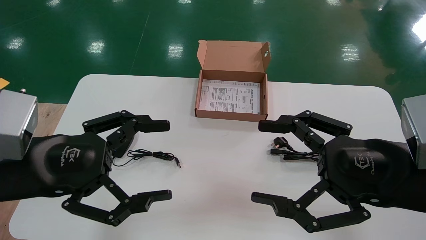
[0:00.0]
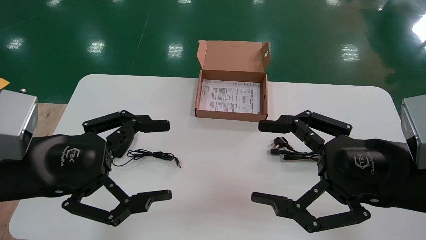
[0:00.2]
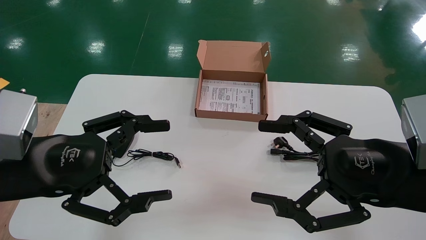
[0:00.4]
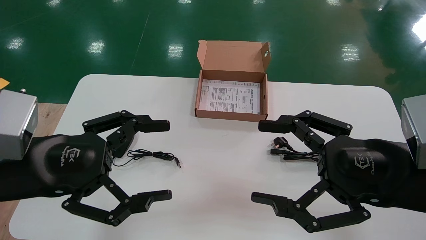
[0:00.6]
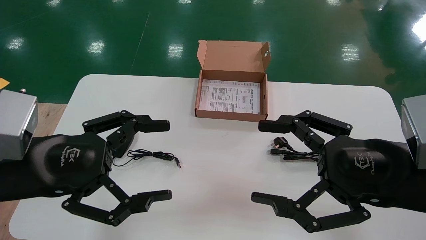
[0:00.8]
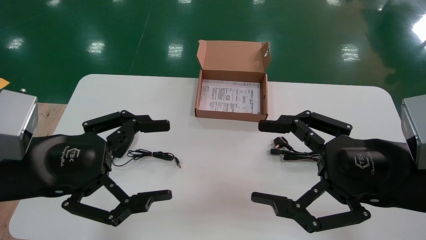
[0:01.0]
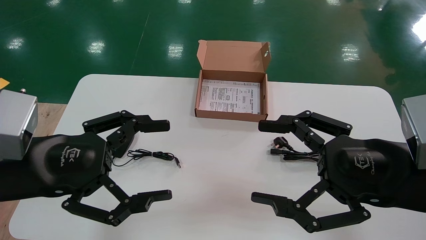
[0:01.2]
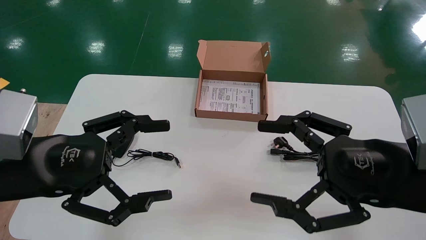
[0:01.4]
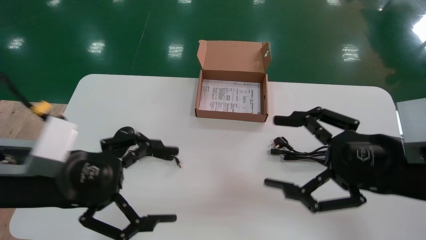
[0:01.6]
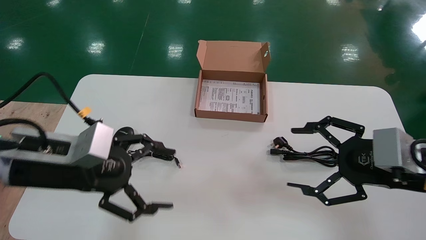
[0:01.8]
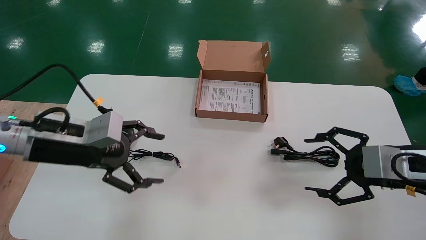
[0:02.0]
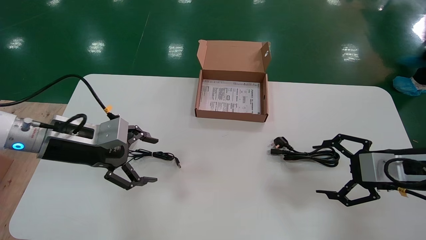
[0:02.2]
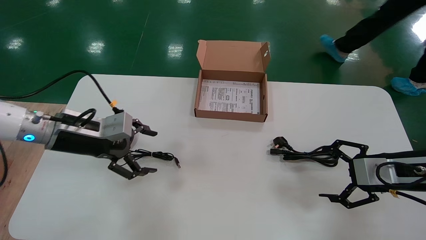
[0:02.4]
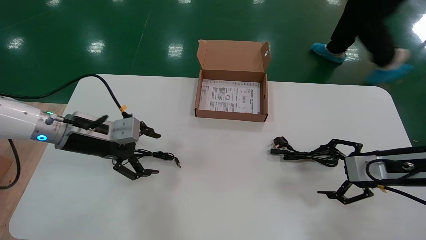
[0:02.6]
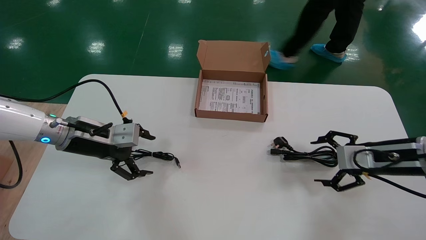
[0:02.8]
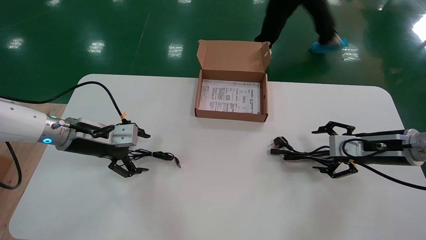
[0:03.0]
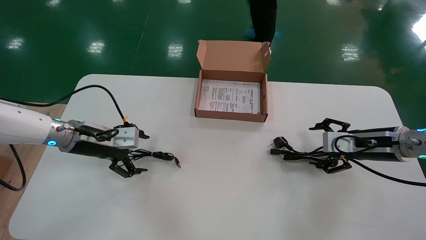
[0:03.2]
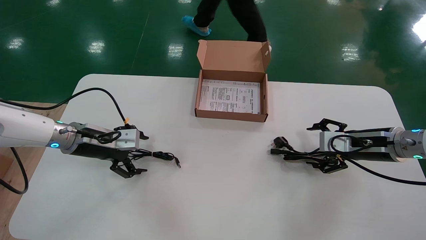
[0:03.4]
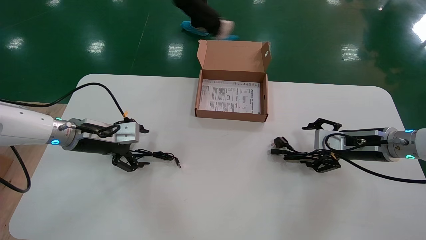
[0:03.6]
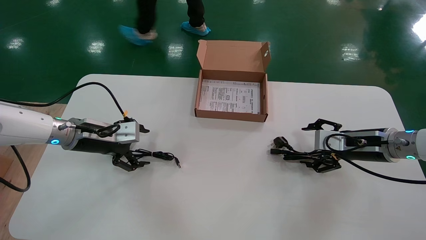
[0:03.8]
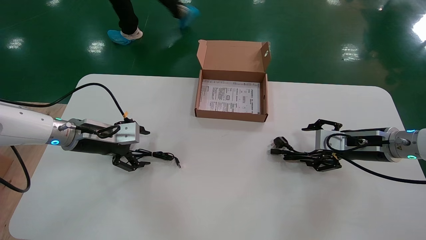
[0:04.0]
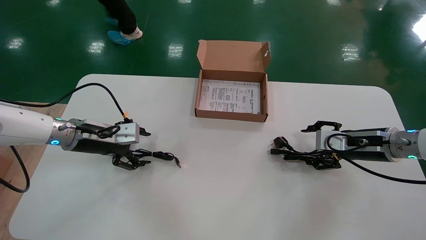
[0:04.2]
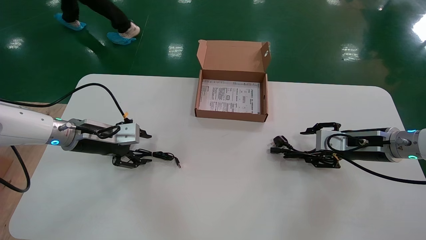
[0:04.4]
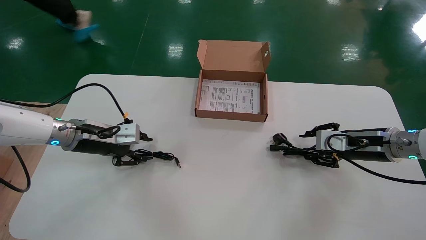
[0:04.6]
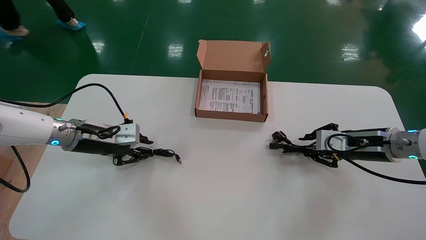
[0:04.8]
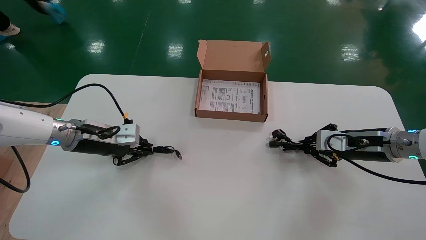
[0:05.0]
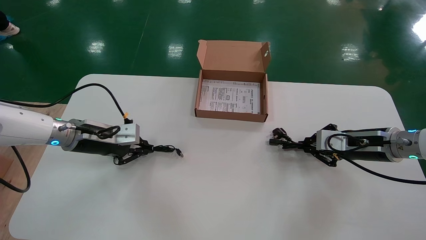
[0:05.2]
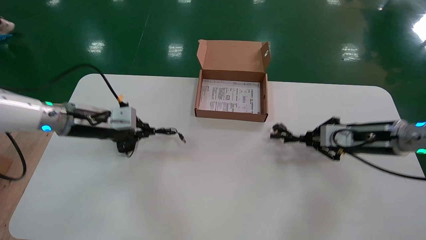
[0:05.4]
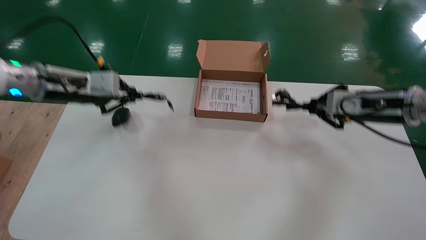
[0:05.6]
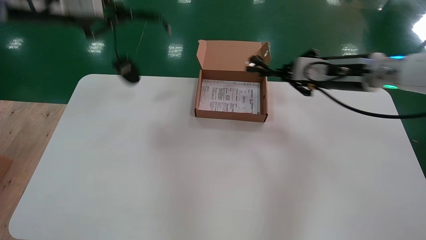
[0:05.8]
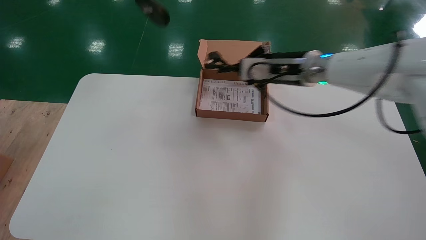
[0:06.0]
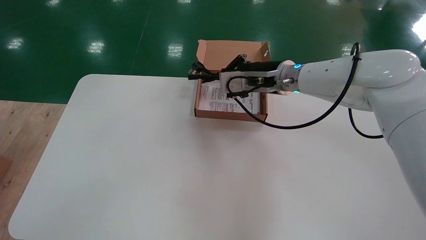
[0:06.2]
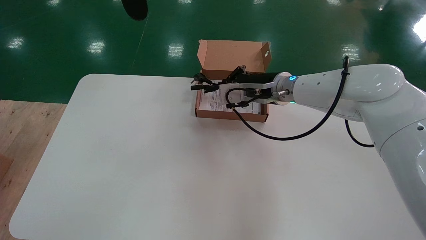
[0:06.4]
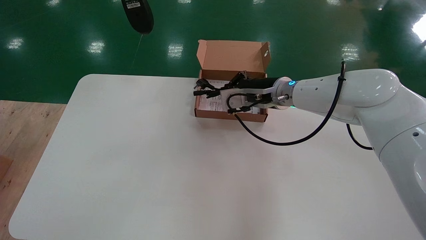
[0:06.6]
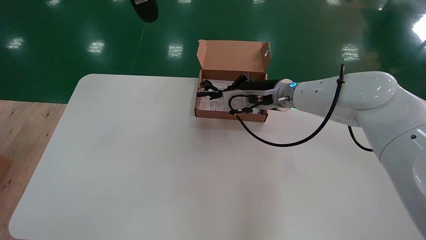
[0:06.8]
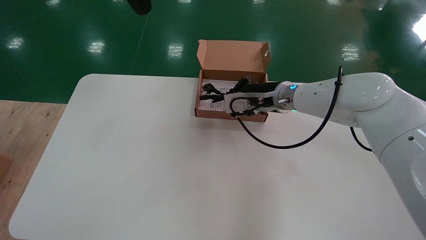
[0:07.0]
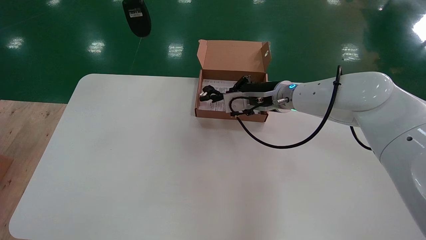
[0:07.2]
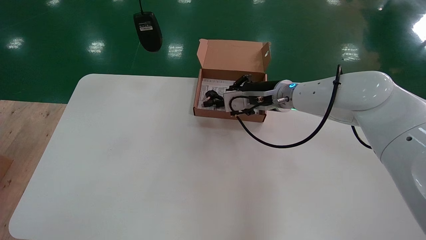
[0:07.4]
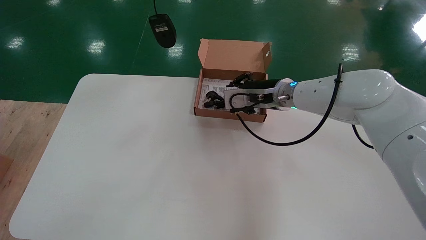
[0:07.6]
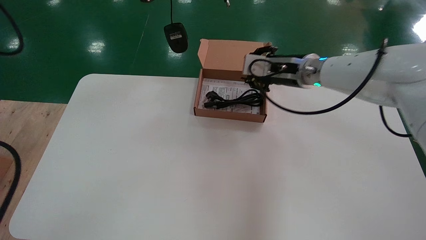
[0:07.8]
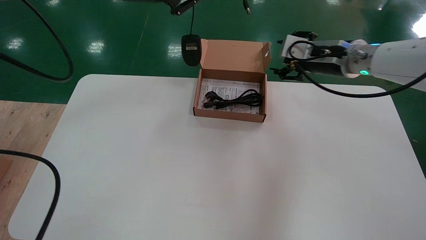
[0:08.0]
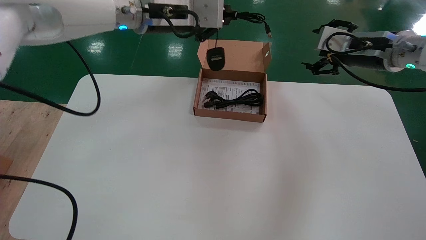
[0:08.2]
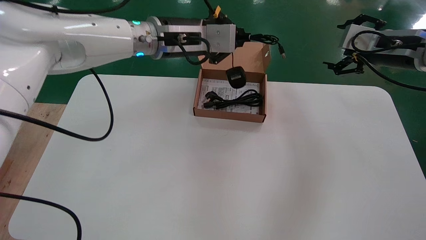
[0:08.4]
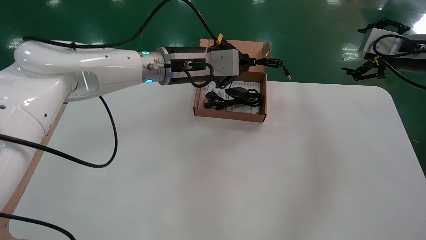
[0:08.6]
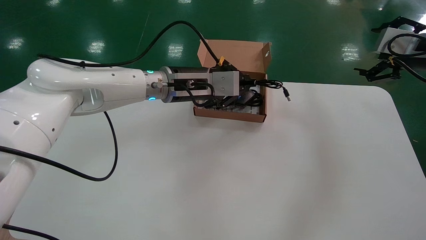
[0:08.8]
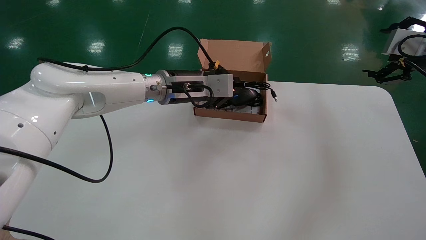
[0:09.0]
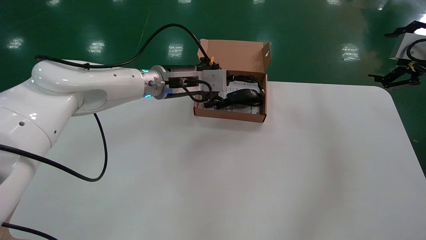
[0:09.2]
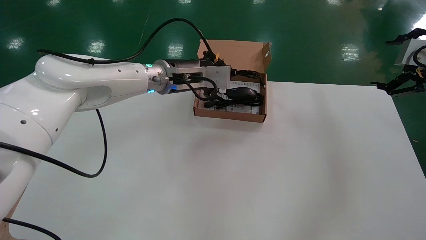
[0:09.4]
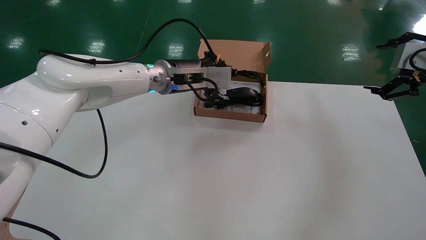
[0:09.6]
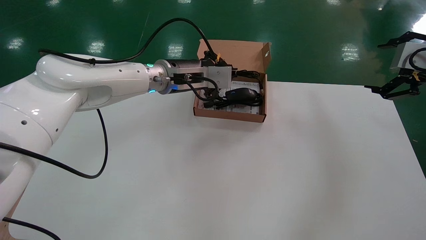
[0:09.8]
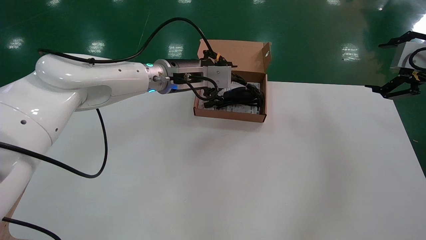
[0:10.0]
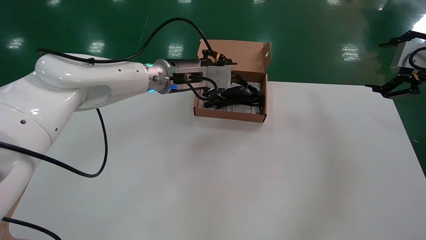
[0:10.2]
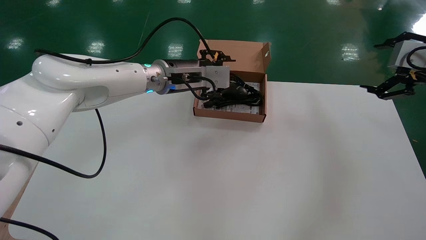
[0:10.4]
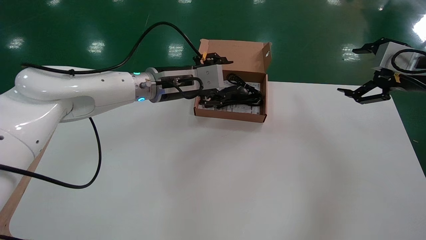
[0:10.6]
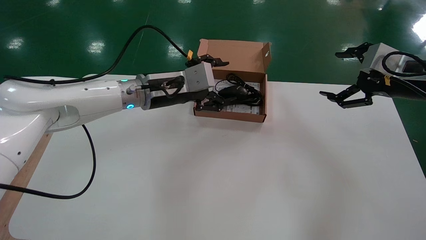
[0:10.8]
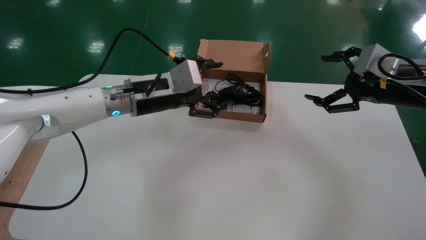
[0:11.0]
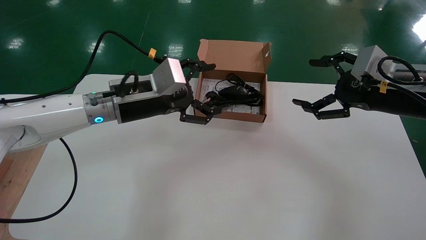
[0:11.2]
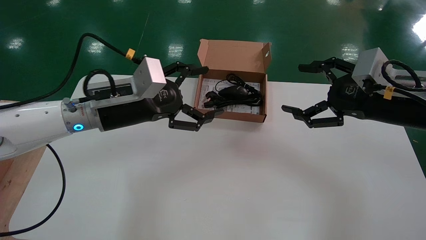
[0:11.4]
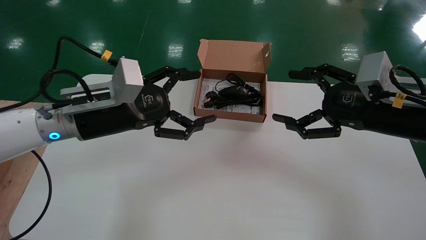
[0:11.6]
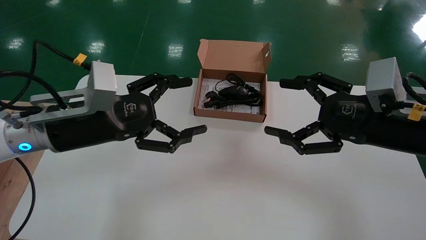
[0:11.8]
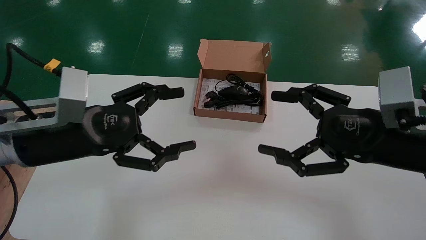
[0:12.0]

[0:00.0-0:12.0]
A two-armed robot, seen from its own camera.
Step, 0:02.0 to 0:05.2: Simultaneously pick up the mouse and power cord from the accessory packaging area.
Step, 0:05.4 to 0:10.2: Place the mouse and power cord into the box.
0:01.6 to 0:03.0: The right gripper heads forward and to the right, covering approximately 20 cm. Meanwhile the left gripper travels forward by roughly 20 cm.
0:03.0 to 0:04.4: The grippers make only small movements.
0:04.4 to 0:06.0: The right gripper moves to the left and upward, about 20 cm, and closes its fingers. Meanwhile the left gripper is displaced upward by approximately 35 cm, and closes its fingers.
0:06.0 to 0:07.6: The left gripper goes approximately 5 cm to the right.
0:07.6 to 0:09.0: The left gripper is displaced downward, to the right and forward by about 30 cm. Meanwhile the right gripper shifts approximately 30 cm to the right, and opens its fingers.
0:09.0 to 0:10.4: The left gripper opens up.
0:10.4 to 0:12.0: The left gripper moves backward and to the left, approximately 25 cm, and opens up, while the right gripper goes about 20 cm to the left, backward and downward.

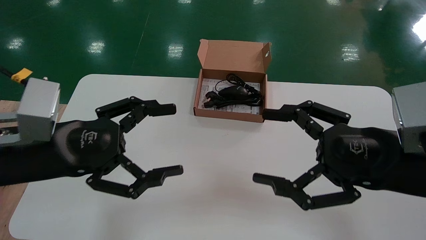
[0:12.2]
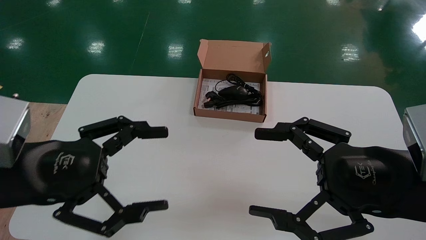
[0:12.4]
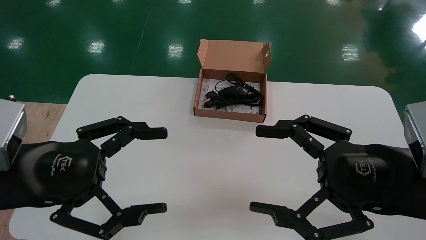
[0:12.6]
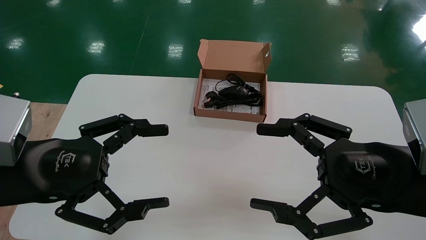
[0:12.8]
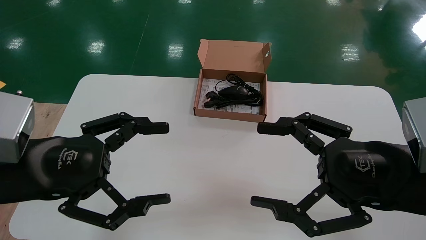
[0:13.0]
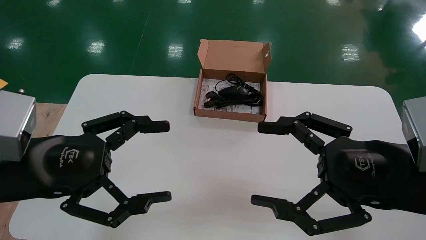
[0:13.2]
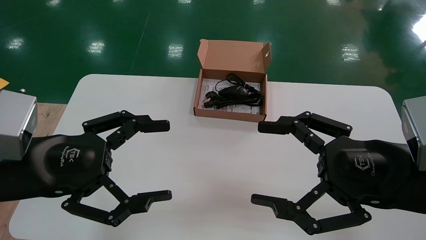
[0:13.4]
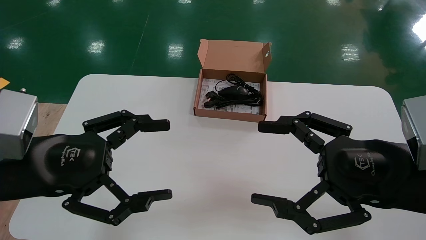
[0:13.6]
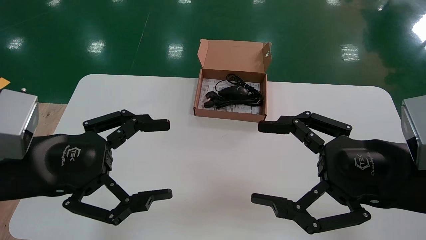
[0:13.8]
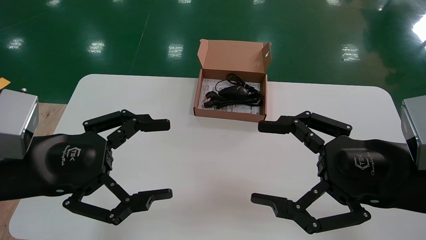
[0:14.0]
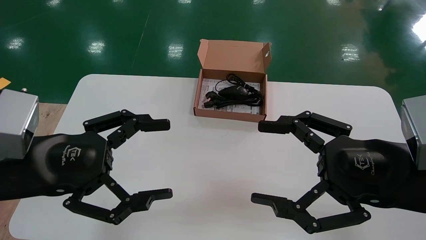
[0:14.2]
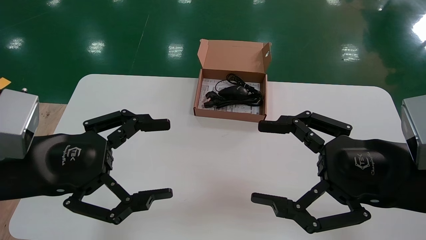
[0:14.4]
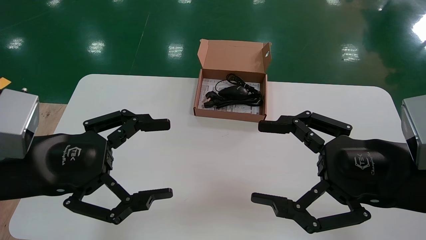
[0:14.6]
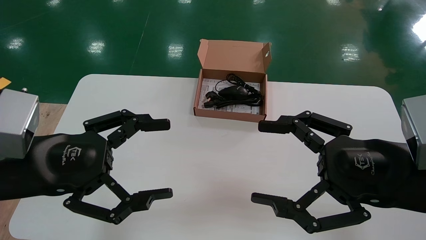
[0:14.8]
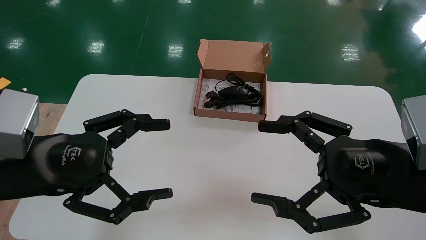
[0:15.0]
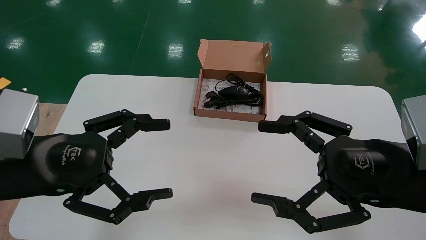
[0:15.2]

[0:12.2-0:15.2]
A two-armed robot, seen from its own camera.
0:13.8 to 0:15.2: Both grippers stay put.
